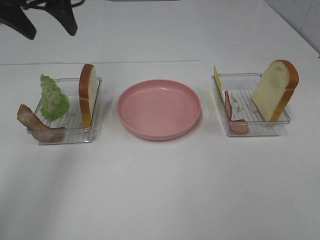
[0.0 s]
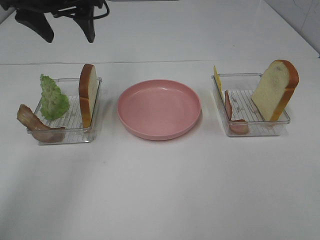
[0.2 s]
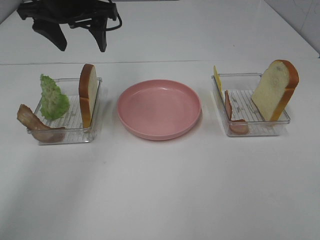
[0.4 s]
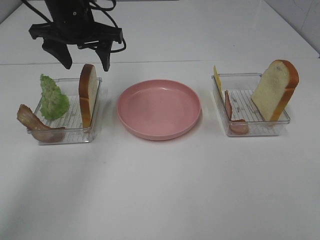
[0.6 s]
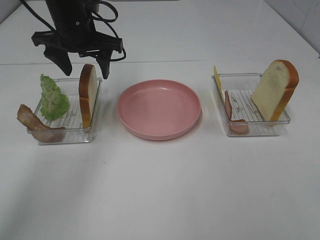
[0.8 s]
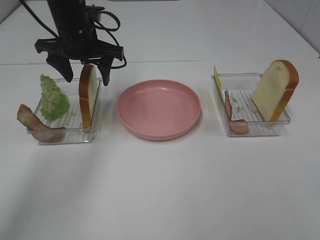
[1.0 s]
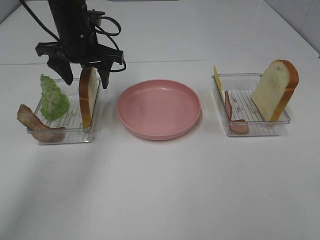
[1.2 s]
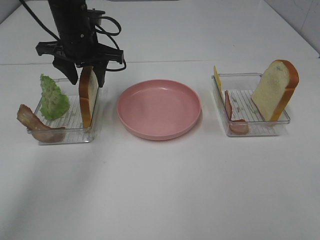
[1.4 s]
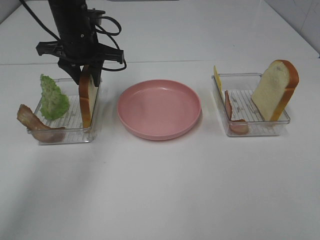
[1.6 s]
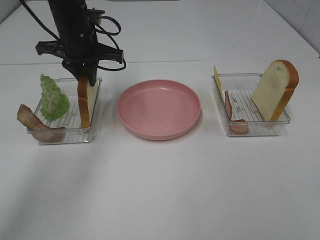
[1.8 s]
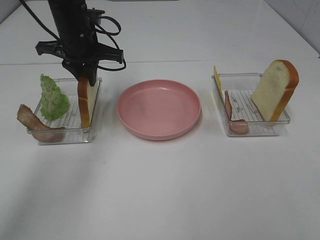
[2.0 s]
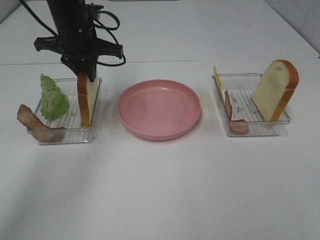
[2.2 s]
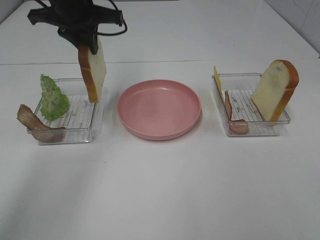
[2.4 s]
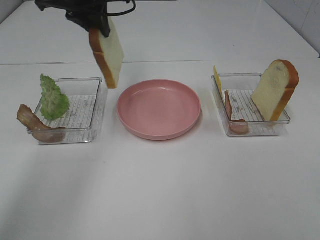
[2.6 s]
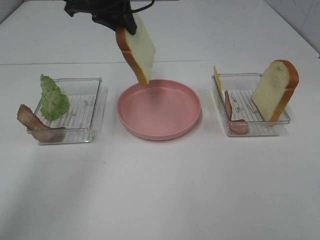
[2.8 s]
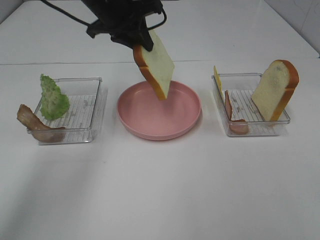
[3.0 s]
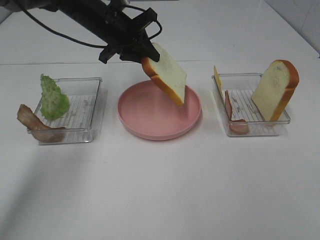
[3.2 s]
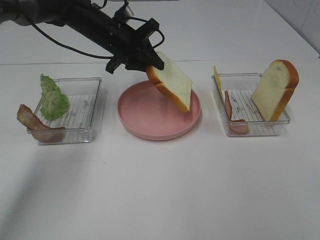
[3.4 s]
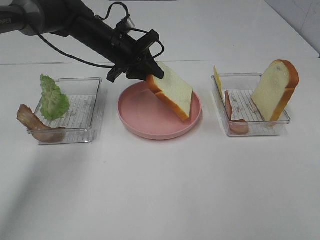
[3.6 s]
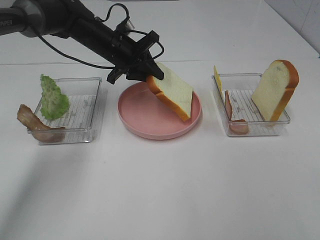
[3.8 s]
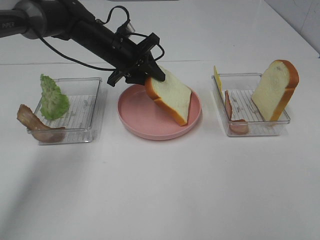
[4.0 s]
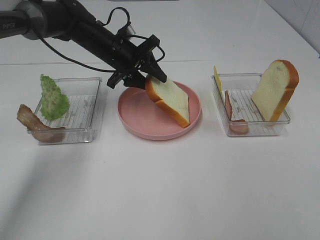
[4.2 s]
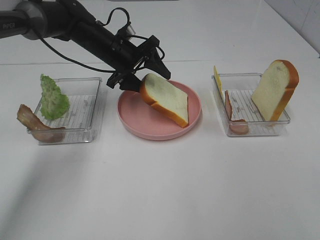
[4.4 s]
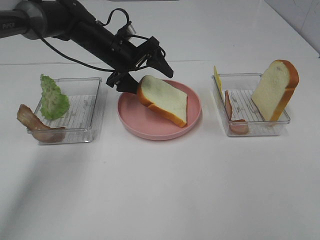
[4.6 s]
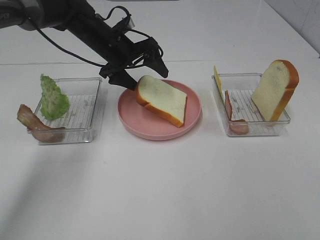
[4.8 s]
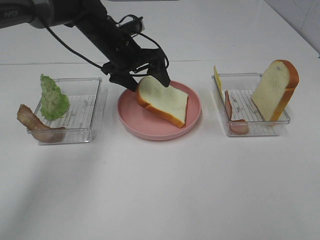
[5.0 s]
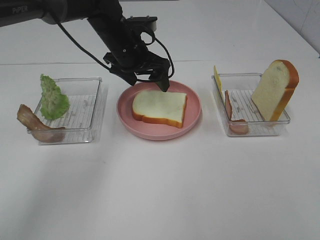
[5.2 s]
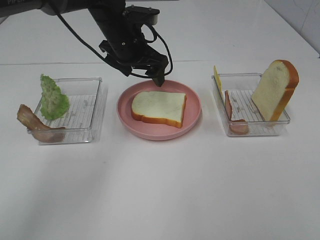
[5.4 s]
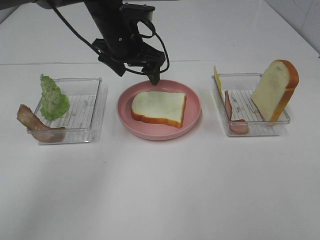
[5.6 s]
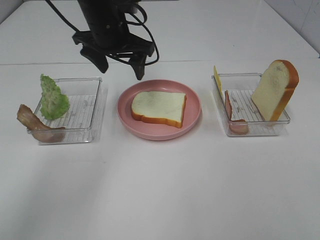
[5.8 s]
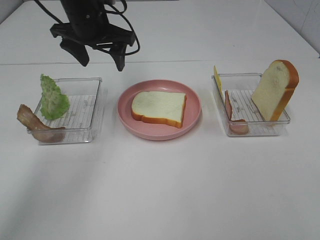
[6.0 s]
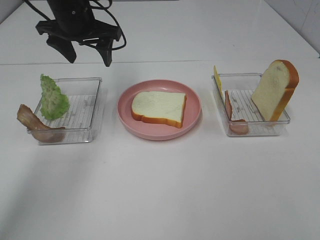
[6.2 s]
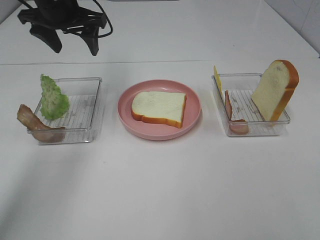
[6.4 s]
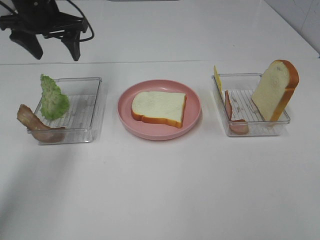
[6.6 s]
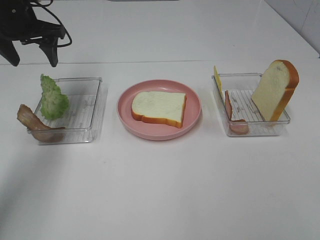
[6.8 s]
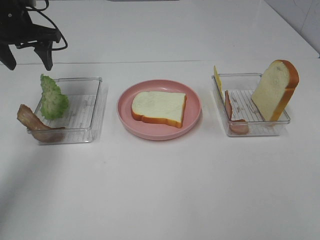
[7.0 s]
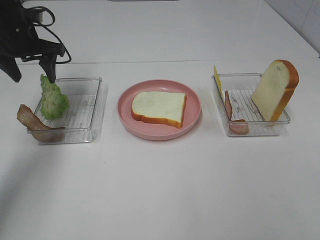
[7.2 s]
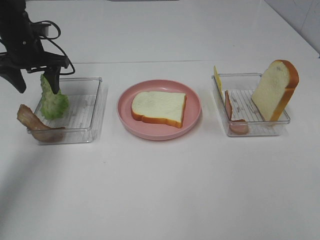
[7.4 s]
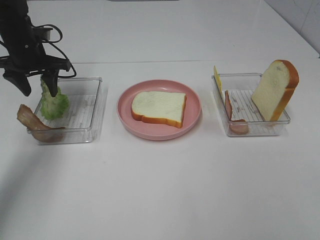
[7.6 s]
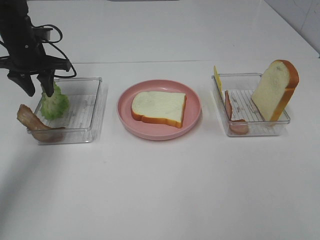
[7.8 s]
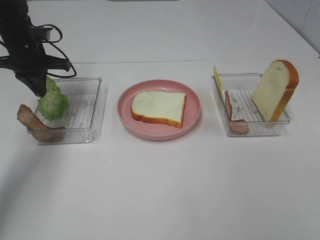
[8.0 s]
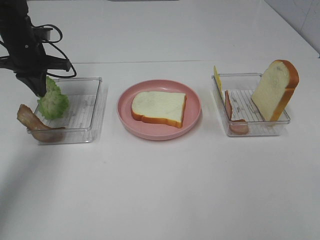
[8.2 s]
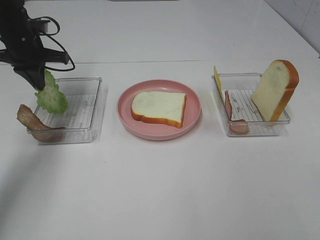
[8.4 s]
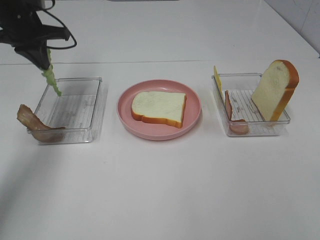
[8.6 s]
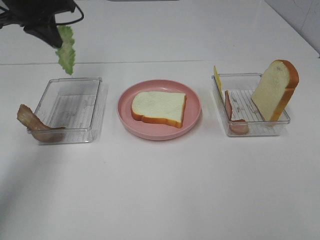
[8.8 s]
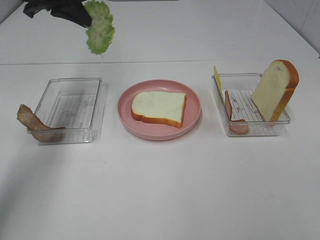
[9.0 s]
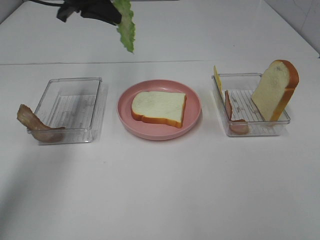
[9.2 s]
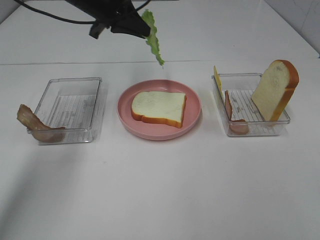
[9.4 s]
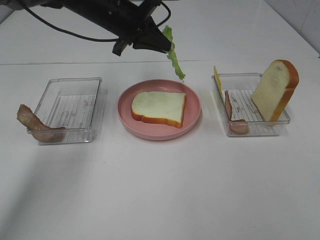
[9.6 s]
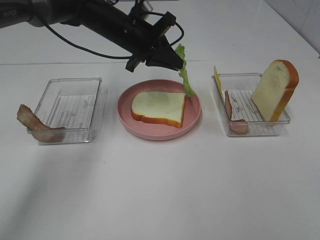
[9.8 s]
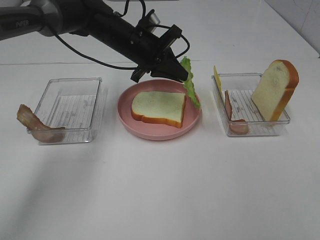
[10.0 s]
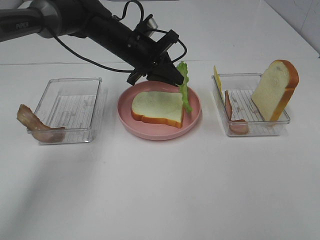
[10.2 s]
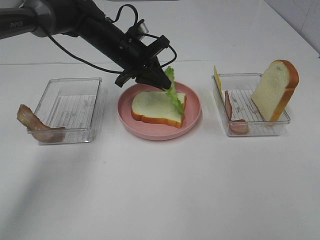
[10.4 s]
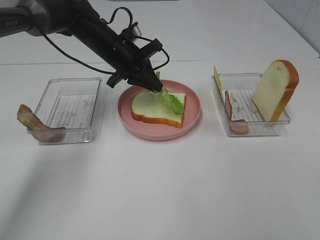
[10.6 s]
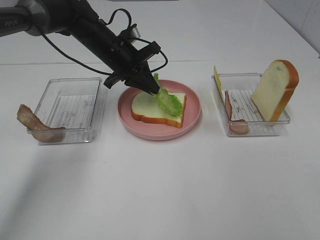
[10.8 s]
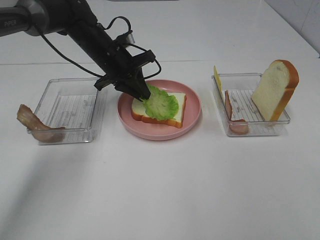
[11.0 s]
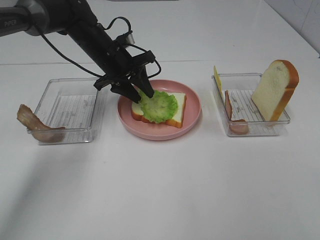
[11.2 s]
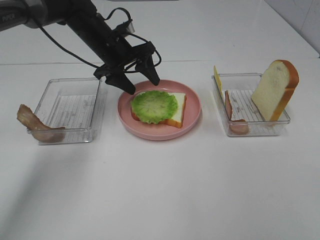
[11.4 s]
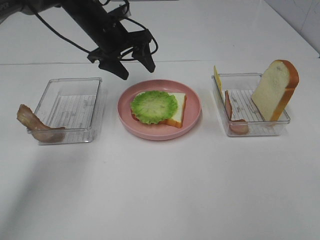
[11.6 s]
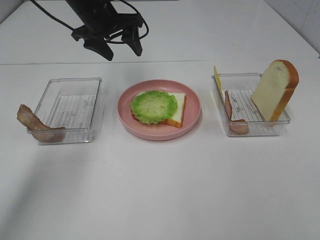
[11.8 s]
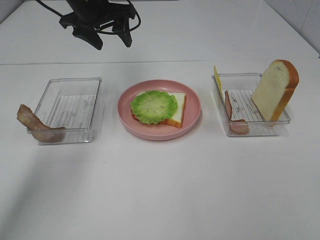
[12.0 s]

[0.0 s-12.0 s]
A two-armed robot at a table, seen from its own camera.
Task of the whole recording: Make sandwiches.
Step, 2.0 to 5.2 s: Left hand:place the bread slice on the plate.
Step, 5.4 to 8.0 s: Left hand:grab the lettuce slice.
Step, 8.2 to 11.4 s: Left hand:place the lettuce slice on the bread slice.
0.0 to 1.6 s: The left gripper moves downward, to the right and forward, roughly 15 cm, and closes its fingers.
3.0 to 4.4 s: The left gripper travels downward by roughly 10 cm, and opens its fingers.
4.4 to 6.0 s: The left gripper shifts some 10 cm upward.
6.0 to 7.6 s: The left gripper moves to the left and downward, roughly 15 cm.
7.6 to 9.0 s: The left gripper shifts roughly 15 cm upward and to the right, and closes up.
9.0 to 10.4 s: The left gripper goes approximately 20 cm downward and to the right.
10.4 to 12.0 s: The left gripper goes about 10 cm upward and to the left, and opens.

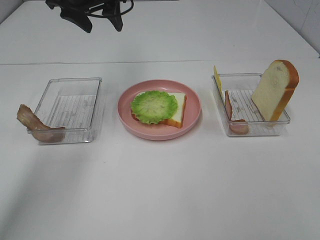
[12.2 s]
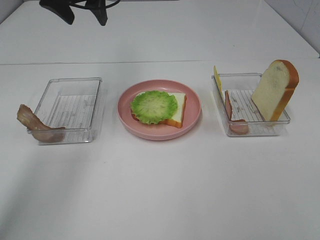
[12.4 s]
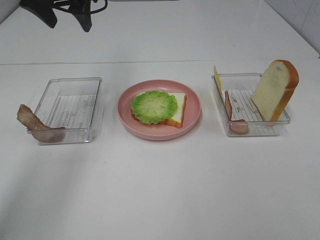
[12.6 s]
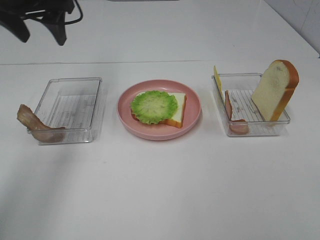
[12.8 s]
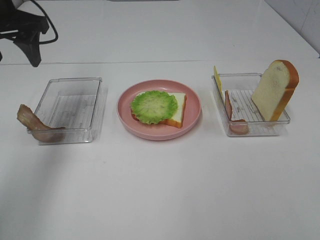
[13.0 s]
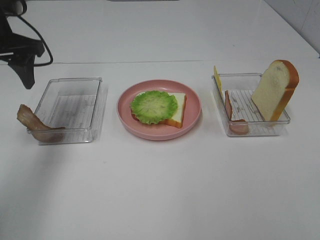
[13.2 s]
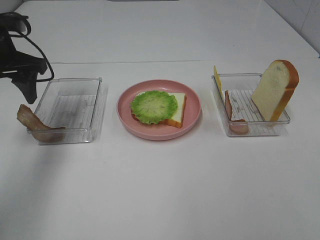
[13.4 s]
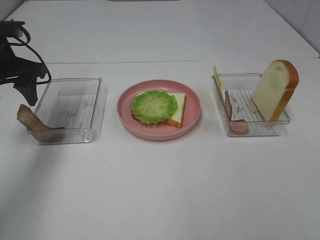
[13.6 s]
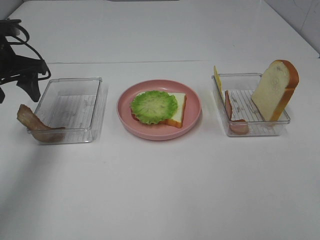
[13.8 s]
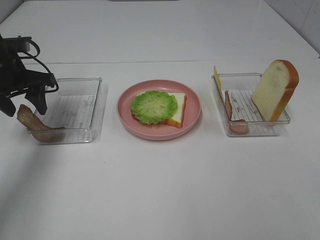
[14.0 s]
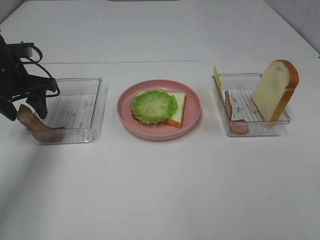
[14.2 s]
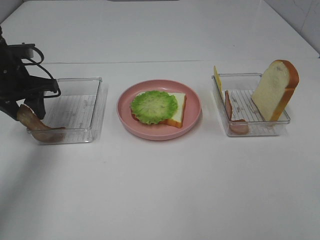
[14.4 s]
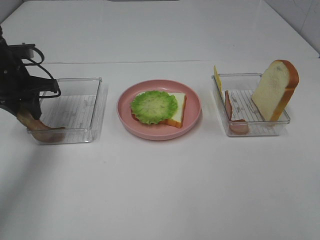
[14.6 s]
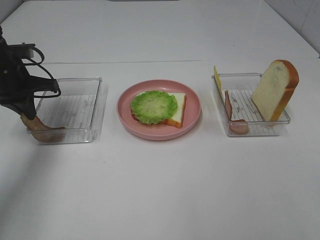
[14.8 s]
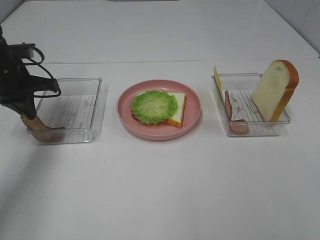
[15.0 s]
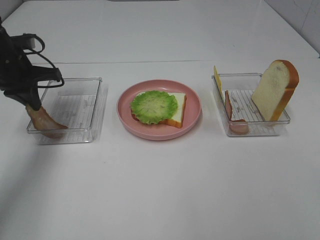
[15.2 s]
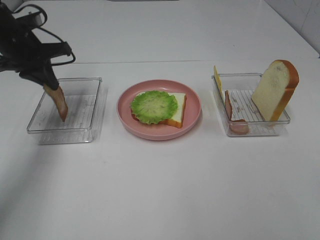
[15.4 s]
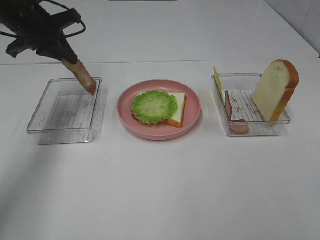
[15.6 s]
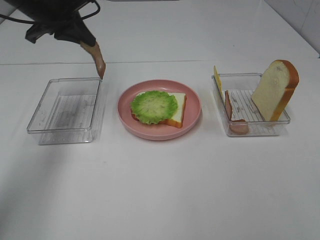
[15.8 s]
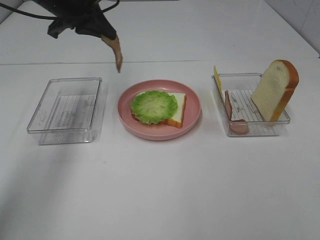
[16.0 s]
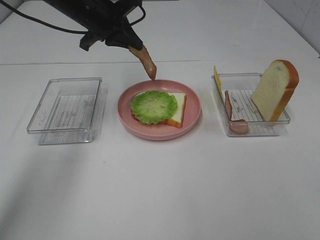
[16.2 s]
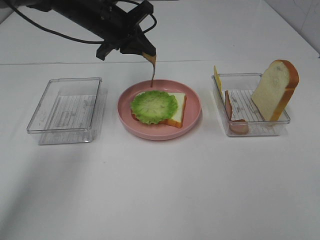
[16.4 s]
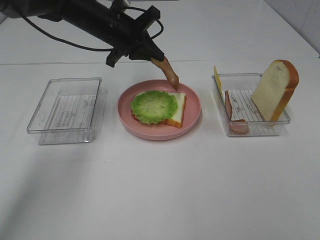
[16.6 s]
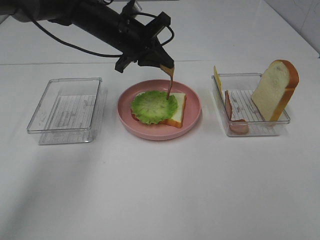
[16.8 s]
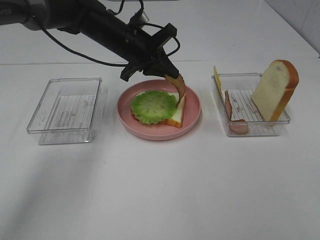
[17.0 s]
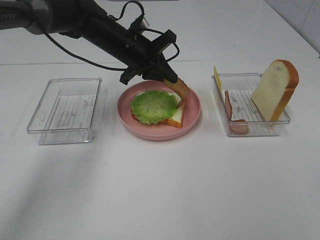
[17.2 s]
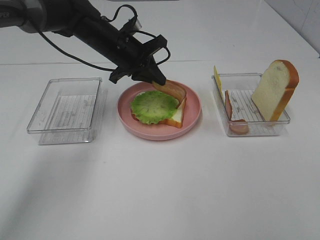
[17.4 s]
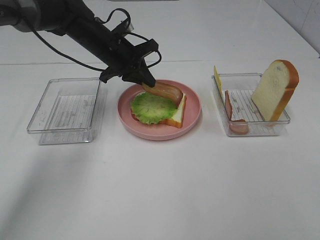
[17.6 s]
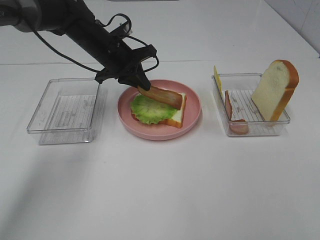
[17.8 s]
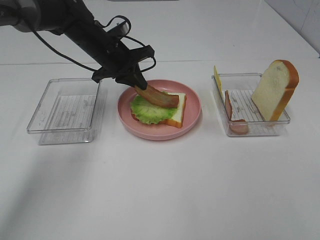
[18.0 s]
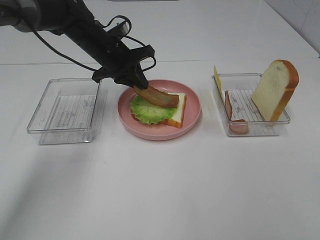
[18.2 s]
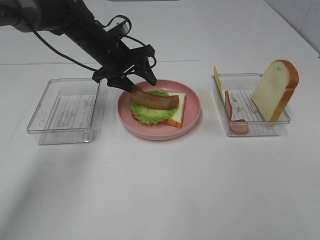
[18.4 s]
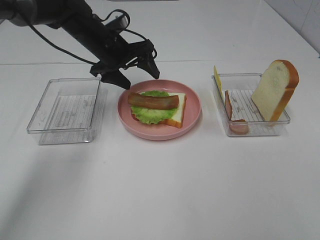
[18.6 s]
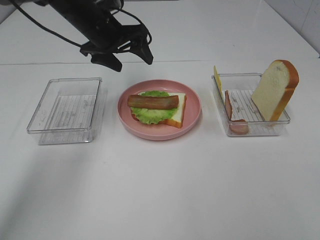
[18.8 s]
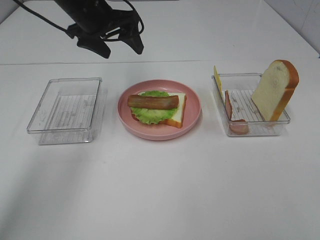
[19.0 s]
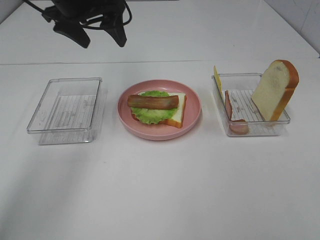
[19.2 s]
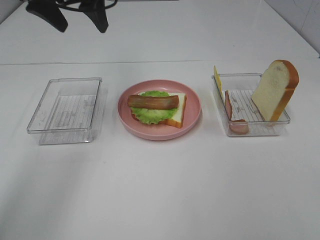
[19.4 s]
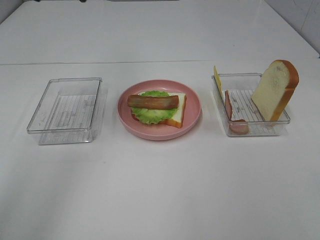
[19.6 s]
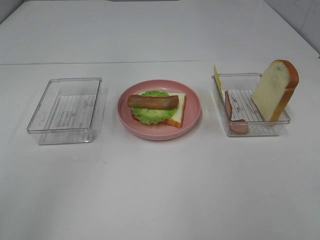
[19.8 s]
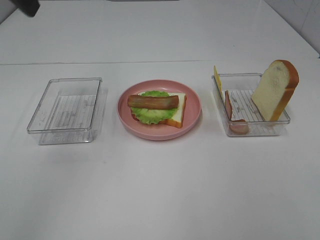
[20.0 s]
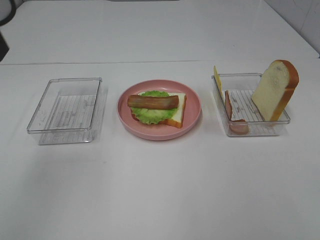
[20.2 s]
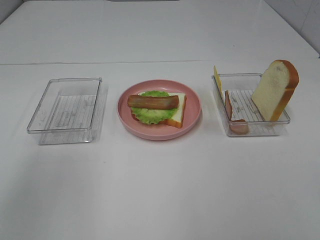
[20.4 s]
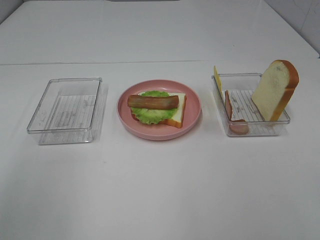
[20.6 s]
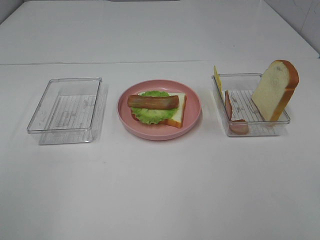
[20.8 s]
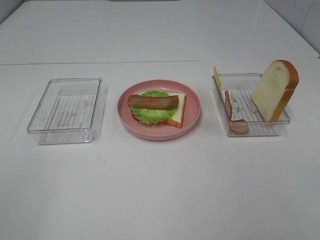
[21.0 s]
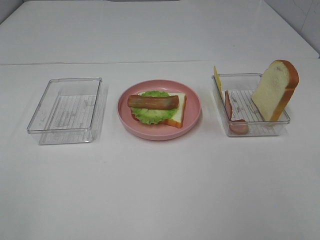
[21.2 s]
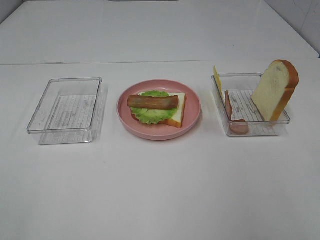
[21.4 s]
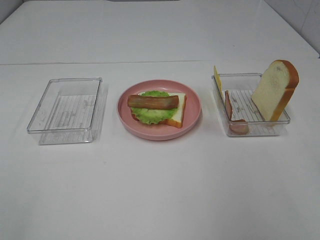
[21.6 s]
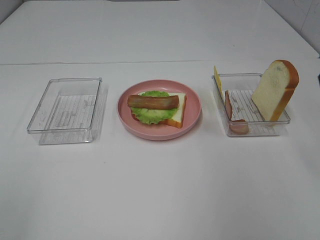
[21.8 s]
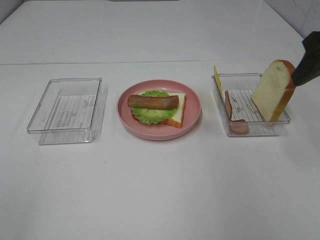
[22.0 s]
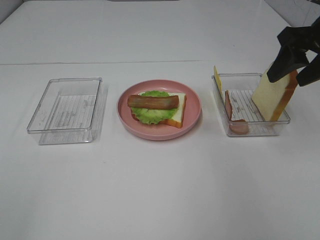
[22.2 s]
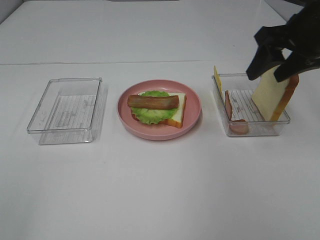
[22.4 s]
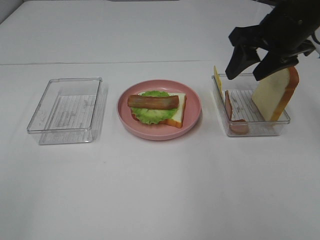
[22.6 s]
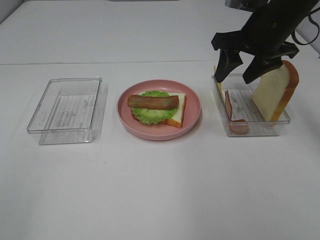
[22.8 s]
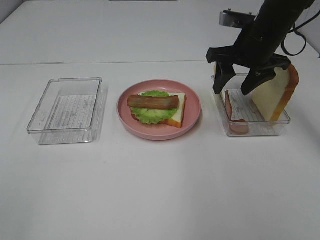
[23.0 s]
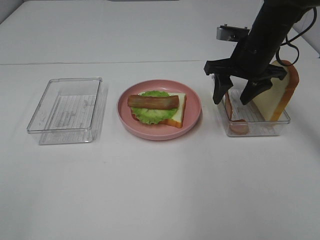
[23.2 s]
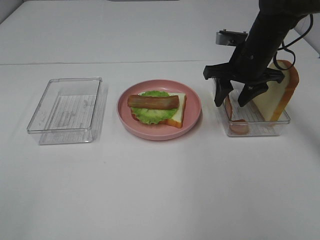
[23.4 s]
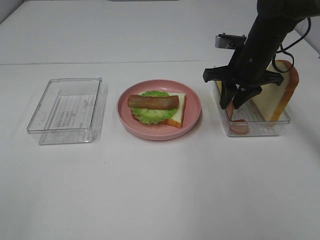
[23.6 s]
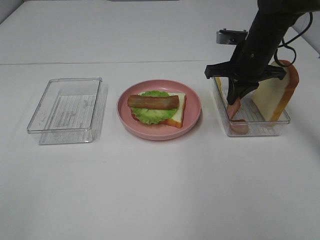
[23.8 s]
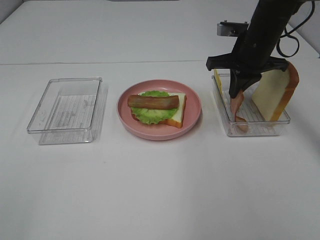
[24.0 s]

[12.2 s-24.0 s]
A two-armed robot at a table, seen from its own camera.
Task of the whole recording: Make sandwiches.
Step, 12.2 to 15.0 s: Left hand:grab the bacon.
Step, 15.2 to 18.6 s: Left hand:place bacon on lettuce slice.
Step, 18.8 to 23.6 s: Right hand:grab the bacon.
12.2 to 13.6 s: The left gripper goes approximately 20 cm to the left, backward and downward.
13.6 to 15.2 s: The left gripper closes.
15.2 to 16.6 s: The left gripper moves to the right, some 15 cm.
16.6 to 18.2 s: The grippers stay close to where they were, moving slightly.
18.2 to 19.6 s: The left gripper heads upward and backward, covering some 25 cm, and opens its fingers.
19.6 to 21.0 s: The left gripper travels backward by roughly 35 cm.
21.0 to 22.6 s: The right gripper goes about 35 cm forward.
22.6 to 24.0 s: The right gripper is displaced downward and forward by some 10 cm, and closes up.
